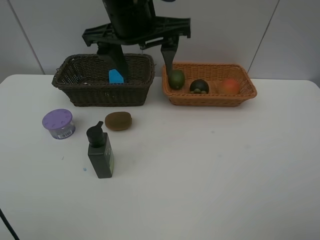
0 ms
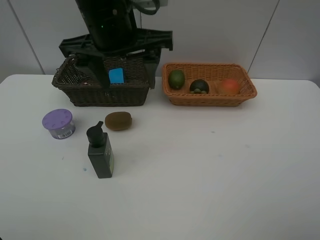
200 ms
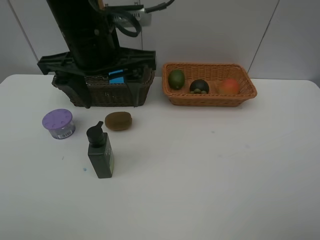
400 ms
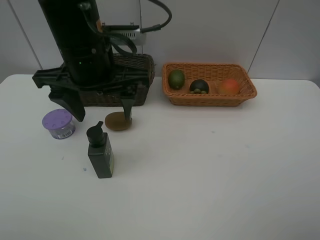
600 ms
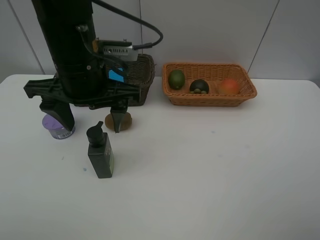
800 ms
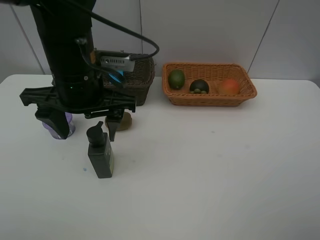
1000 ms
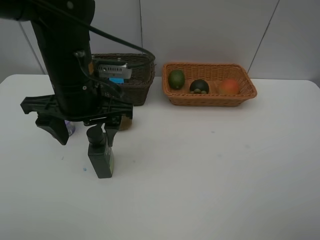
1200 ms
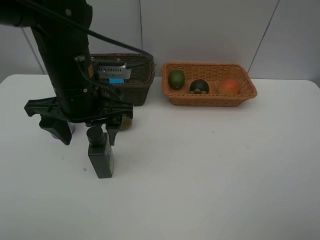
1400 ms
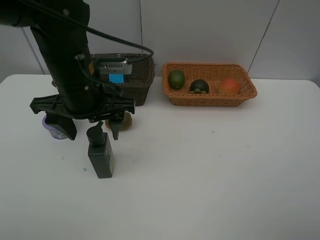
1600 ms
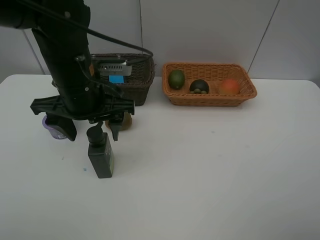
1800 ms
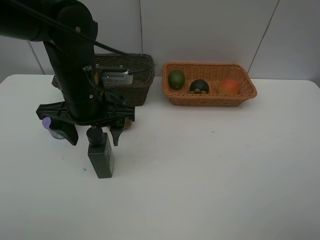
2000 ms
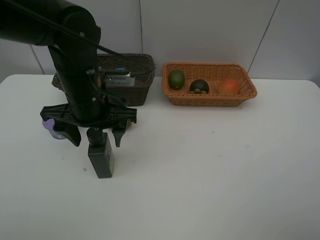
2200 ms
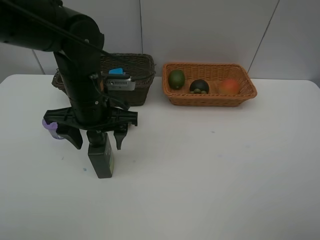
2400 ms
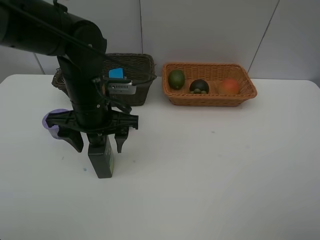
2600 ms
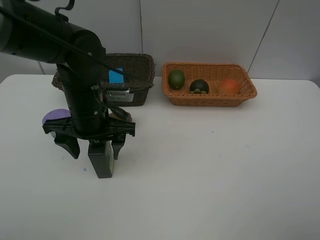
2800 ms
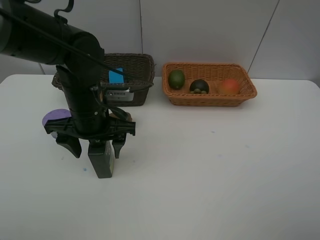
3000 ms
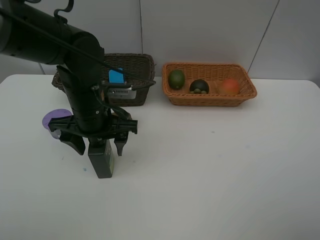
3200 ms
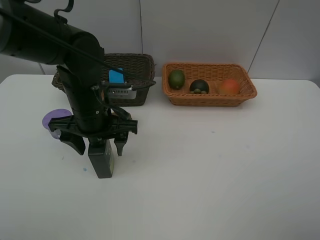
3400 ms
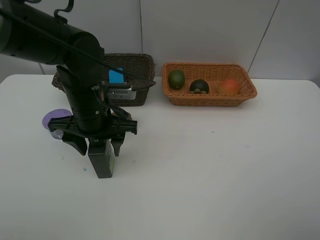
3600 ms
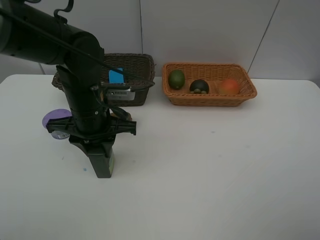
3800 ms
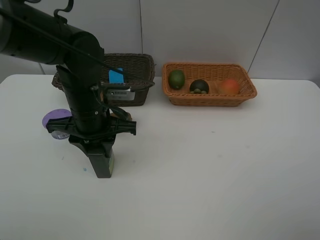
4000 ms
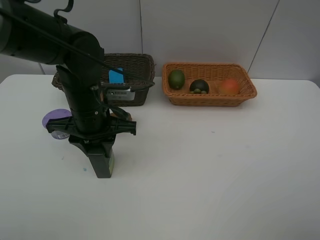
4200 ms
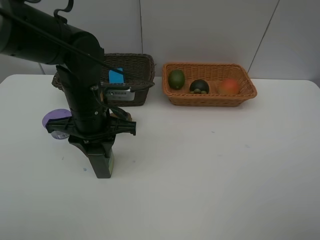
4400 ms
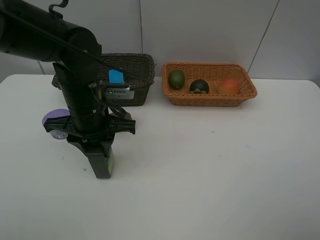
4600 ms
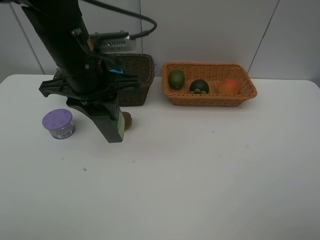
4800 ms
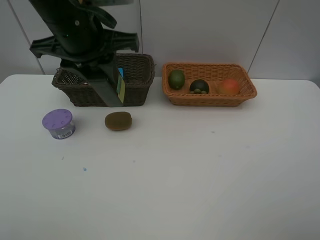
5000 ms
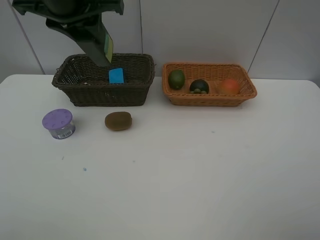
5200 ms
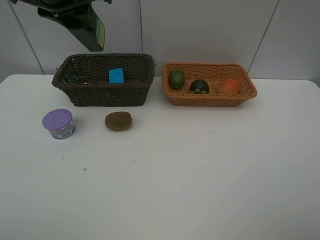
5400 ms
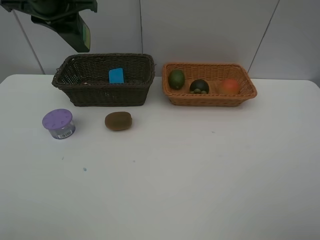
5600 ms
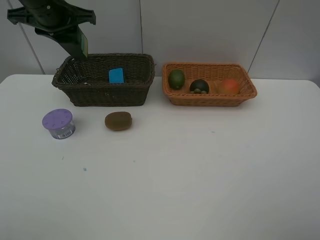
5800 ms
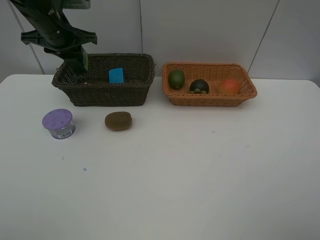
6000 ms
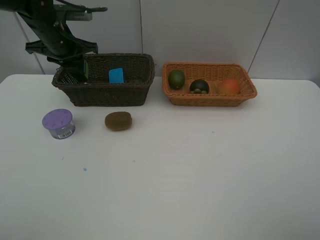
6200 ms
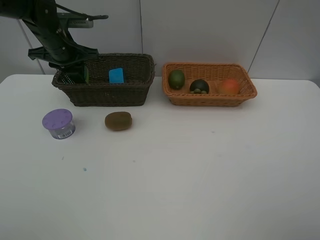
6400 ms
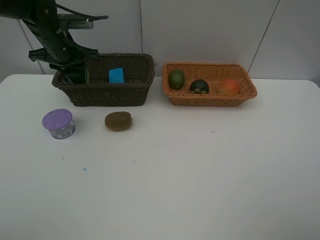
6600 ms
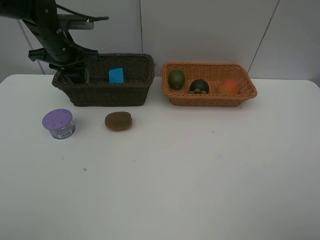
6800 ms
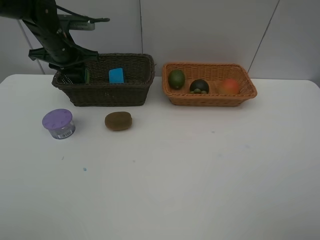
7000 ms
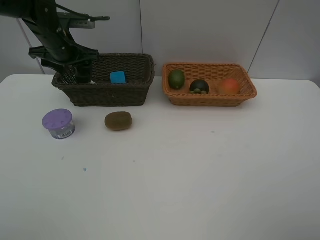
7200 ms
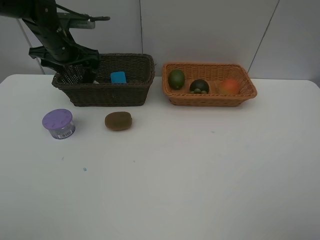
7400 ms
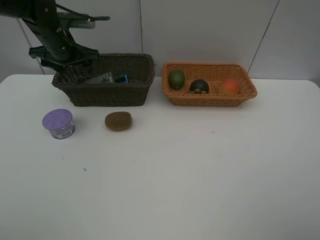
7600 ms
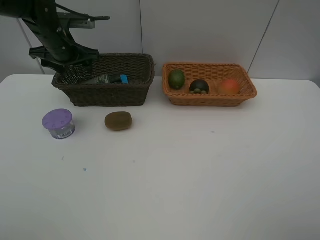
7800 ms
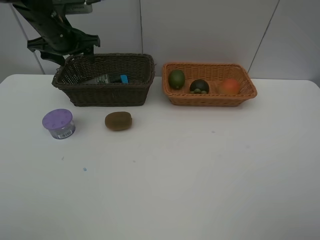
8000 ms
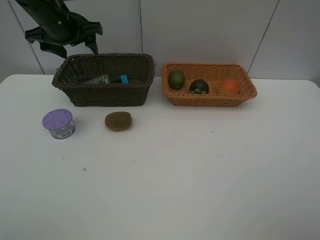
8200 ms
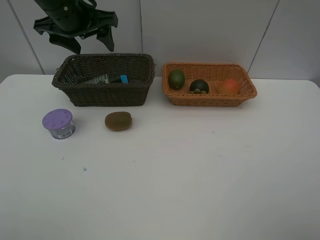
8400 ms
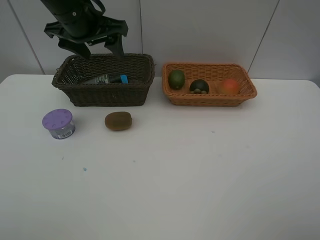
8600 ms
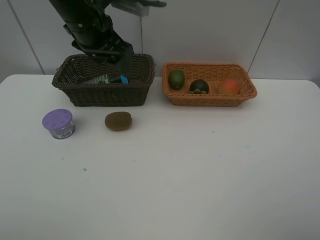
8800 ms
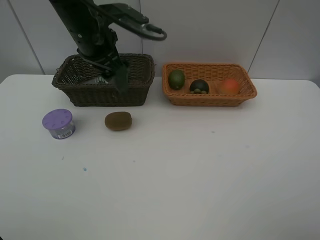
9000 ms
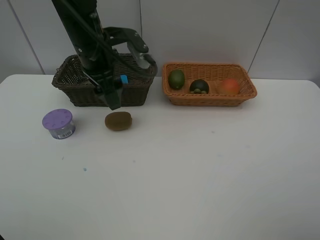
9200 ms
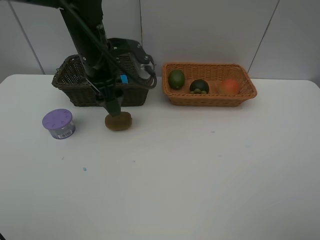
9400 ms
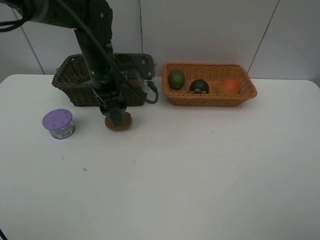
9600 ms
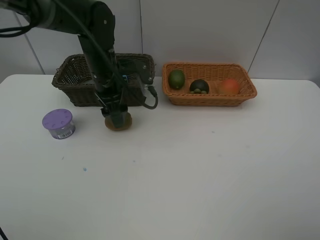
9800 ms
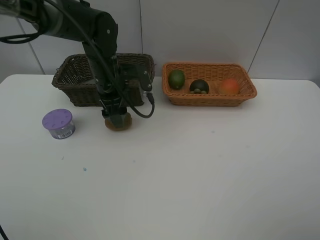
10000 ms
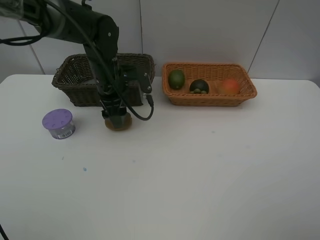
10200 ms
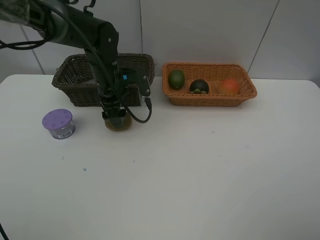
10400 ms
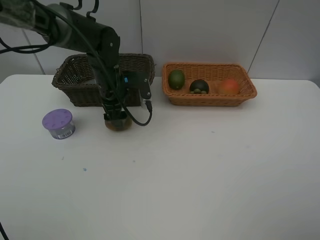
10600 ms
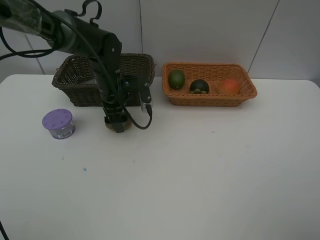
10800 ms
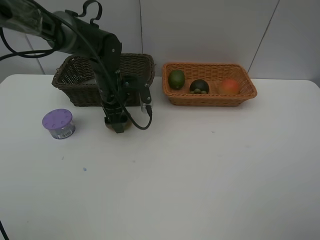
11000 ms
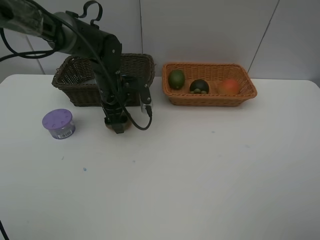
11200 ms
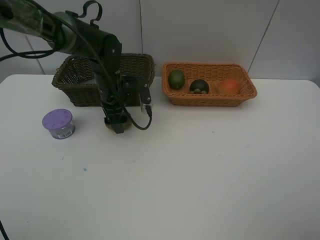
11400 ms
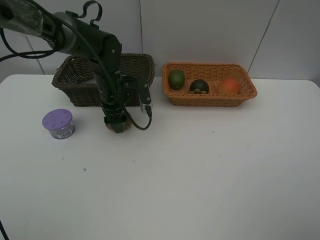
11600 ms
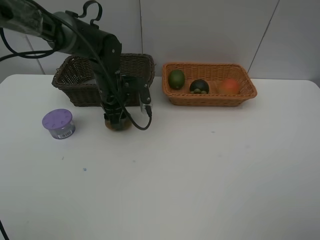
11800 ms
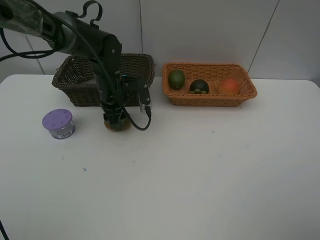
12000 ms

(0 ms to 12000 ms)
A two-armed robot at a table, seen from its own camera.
Task of the whole recording: Place multiple objects separately in different baskets.
Step, 0 ms - 4600 ms: Pick up the hard facial cleanser with left gripper.
Step, 4800 ms - 7600 ms: Place the hard facial cleanser in the dark basket with left gripper.
0 ms - 1600 ms: The left gripper shifts approximately 10 cm downward and to the left.
1600 ms - 3000 ms: The left gripper travels downward by about 5 cm.
3000 ms - 4400 ms: The left gripper closes its fingers.
4400 ms - 6000 ms: The left gripper moves forward, to the left and upward, about 20 cm.
6000 ms - 7600 ms: The left gripper opens its fingers.
7600 ms - 9000 ms: The left gripper travels to the right, backward and upward by about 15 cm.
9000 ms - 10400 ms: The left gripper travels downward by about 15 cm.
10400 ms - 12000 ms: The left gripper closes.

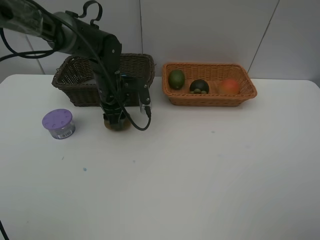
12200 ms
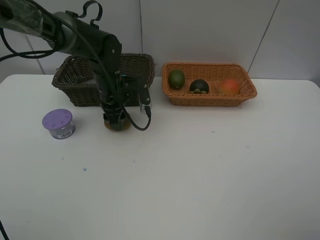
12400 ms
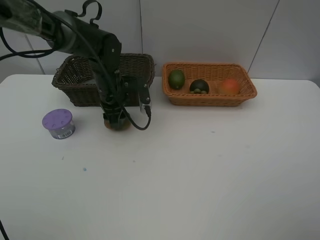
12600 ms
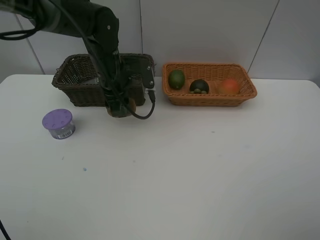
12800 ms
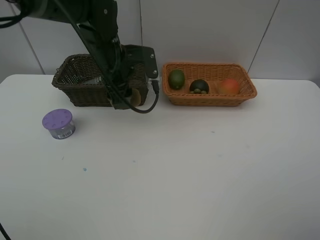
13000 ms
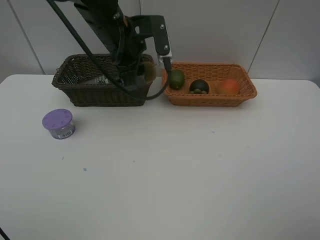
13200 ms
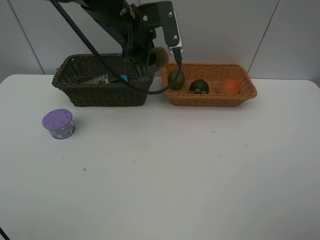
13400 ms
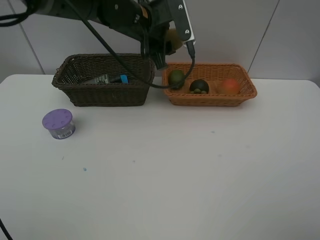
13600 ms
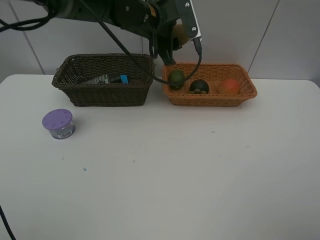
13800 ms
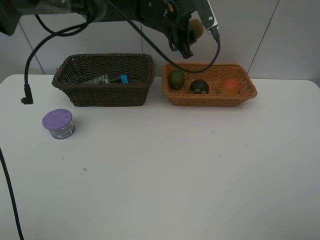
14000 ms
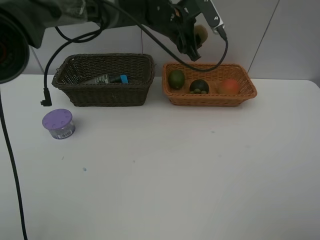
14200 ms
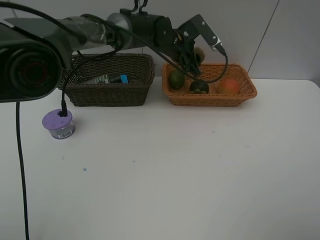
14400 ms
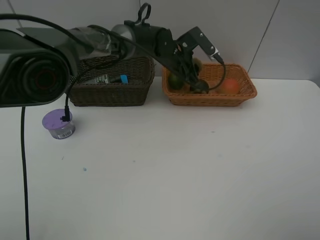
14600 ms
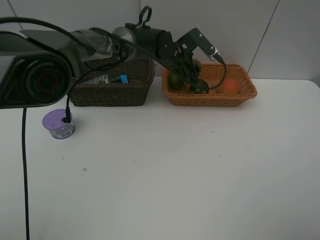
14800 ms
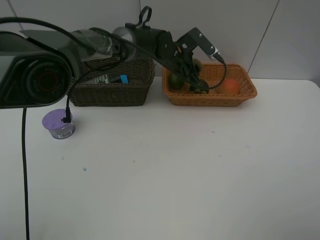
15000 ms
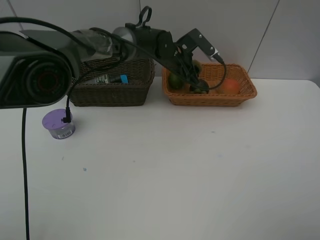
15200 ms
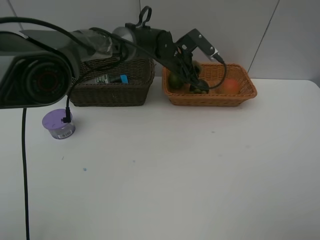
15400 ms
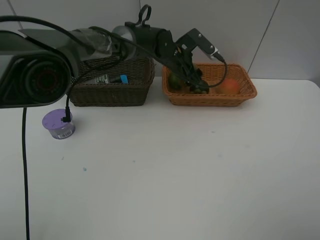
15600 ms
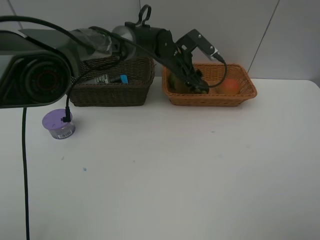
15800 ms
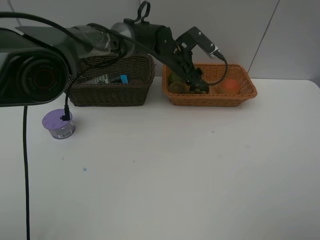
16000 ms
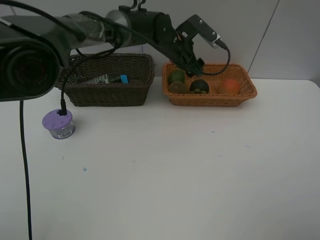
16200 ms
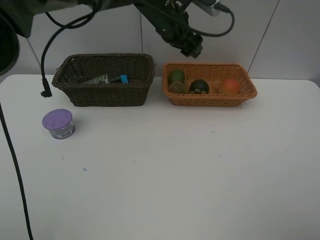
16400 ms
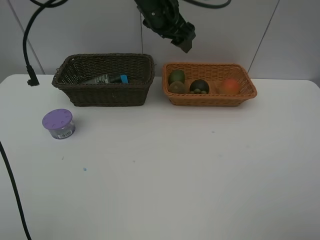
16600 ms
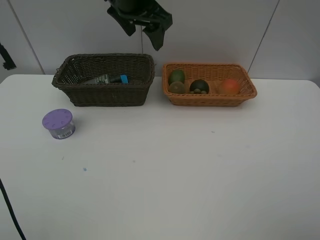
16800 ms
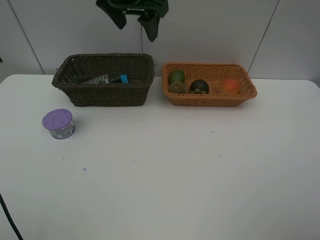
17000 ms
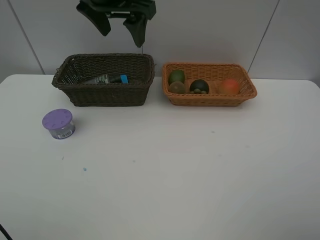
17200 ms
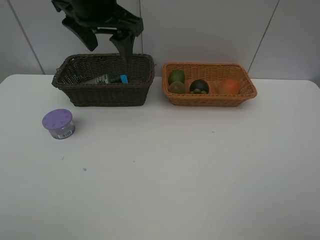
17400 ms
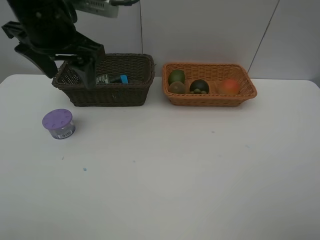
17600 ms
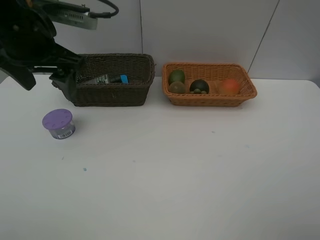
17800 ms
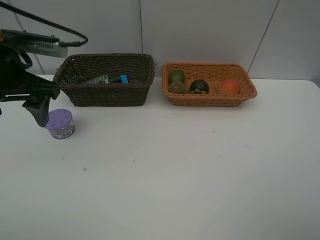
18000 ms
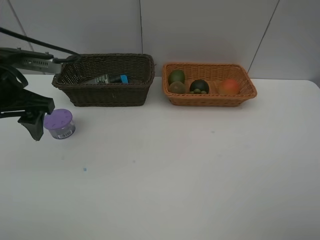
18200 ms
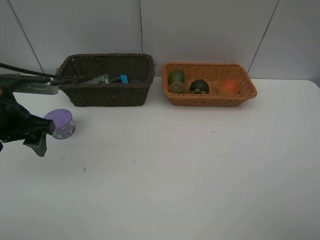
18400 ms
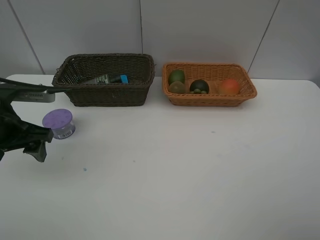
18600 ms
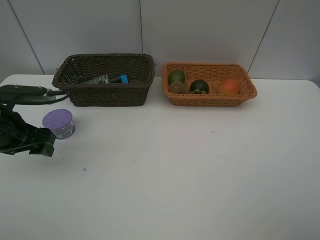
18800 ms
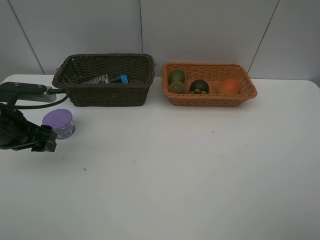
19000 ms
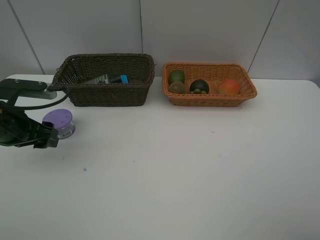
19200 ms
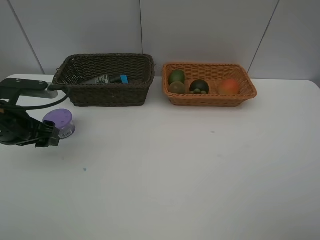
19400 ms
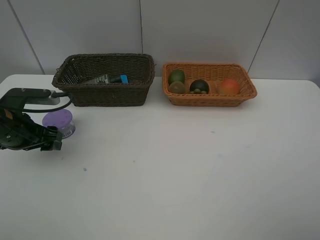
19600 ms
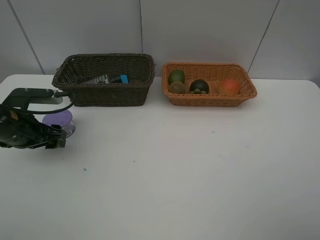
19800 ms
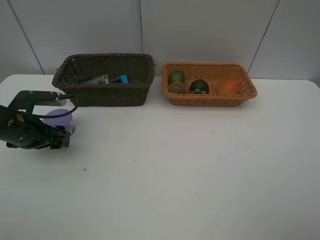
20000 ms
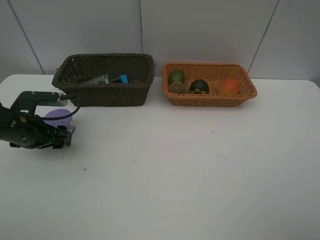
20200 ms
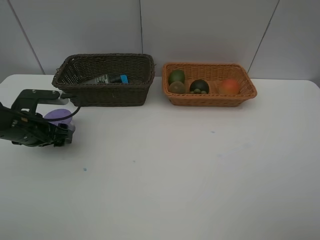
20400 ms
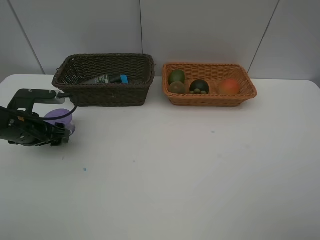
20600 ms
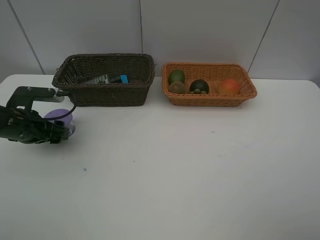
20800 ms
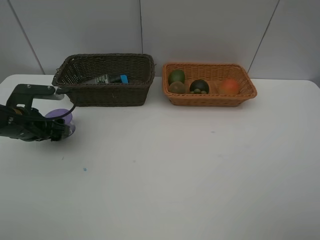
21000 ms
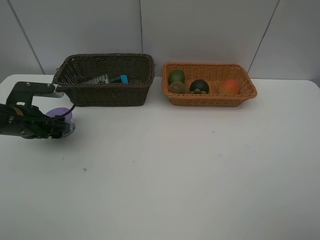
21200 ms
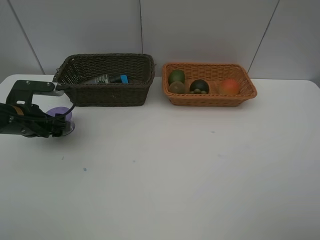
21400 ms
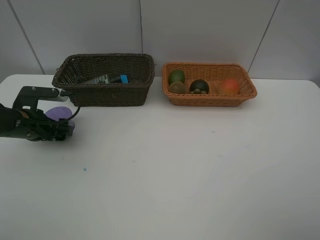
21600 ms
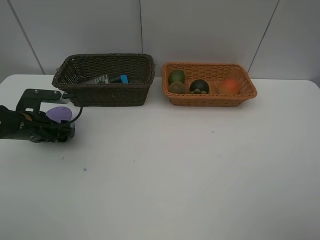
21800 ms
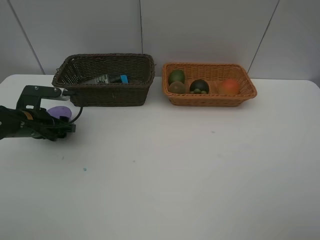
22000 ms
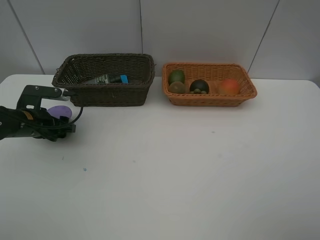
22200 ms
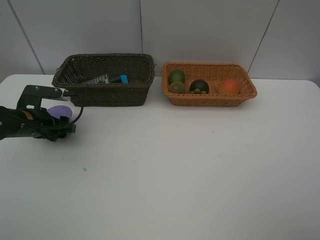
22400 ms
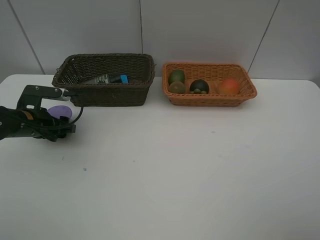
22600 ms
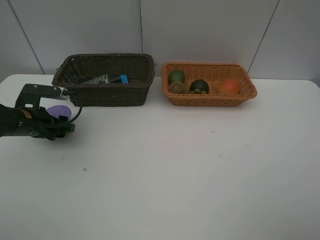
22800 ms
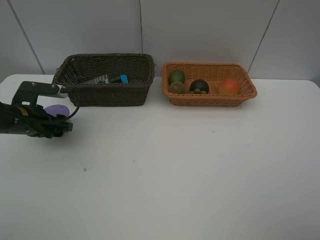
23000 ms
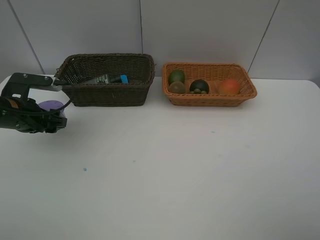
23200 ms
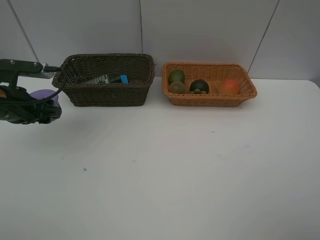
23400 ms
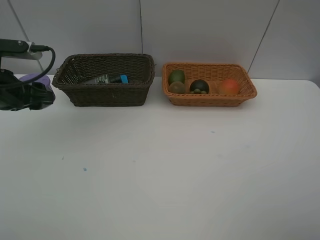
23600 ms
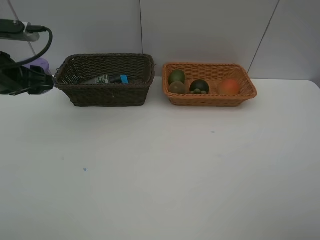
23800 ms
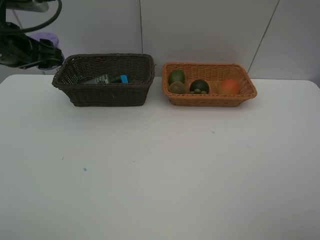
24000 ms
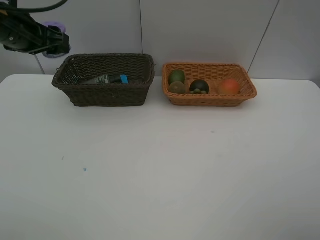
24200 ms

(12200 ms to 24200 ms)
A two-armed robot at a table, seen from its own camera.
Task of the whole recording: Place multiple objects separately in different baskets.
Step, 12800 ms - 16200 ms: Place the kiwi in the light basket with left gripper.
Step, 16400 ms - 23000 ms: Pick up Incense box with left gripper.
12200 ms - 13800 ms: The left gripper is displaced upward and to the right by some 15 cm.
13800 ms - 15200 ms: The left gripper shifts roughly 10 cm downward and forward.
15200 ms - 16600 ms: The left gripper travels upward by some 15 cm, and opens its fingers.
16600 ms - 18200 ms: The left gripper goes roughly 30 cm to the left and backward.
18200 ms - 19800 ms: The left gripper heads downward, covering about 10 cm.
19800 ms - 22600 ms: The grippers make only small movements.
22600 ms - 24200 ms: The left gripper travels upward by about 20 cm.
